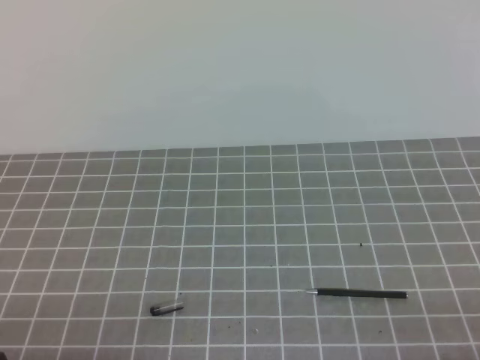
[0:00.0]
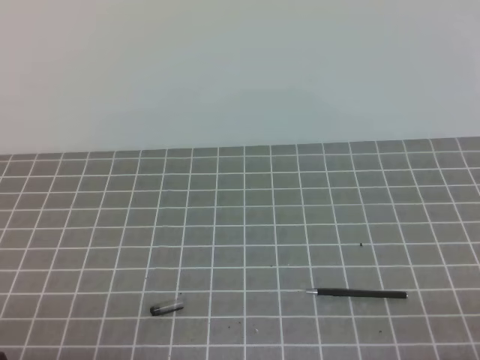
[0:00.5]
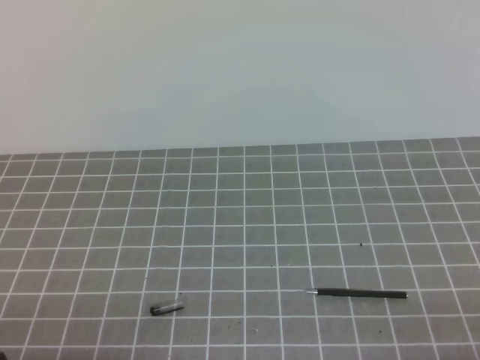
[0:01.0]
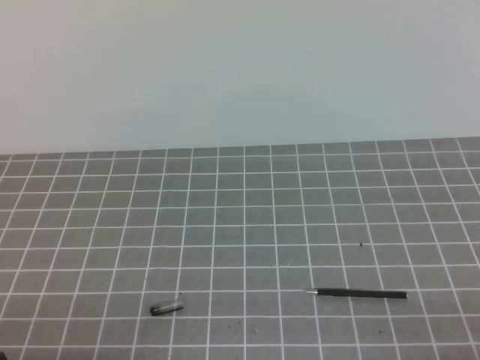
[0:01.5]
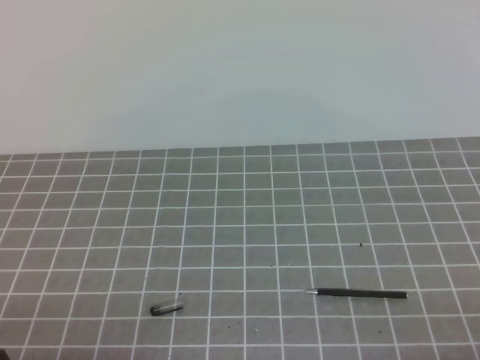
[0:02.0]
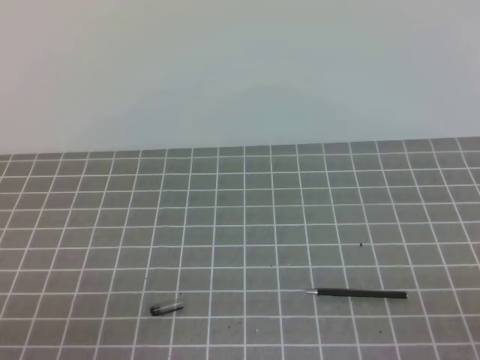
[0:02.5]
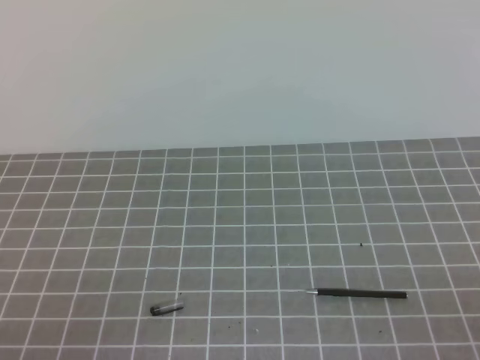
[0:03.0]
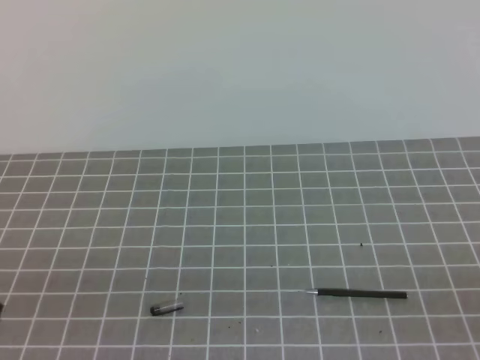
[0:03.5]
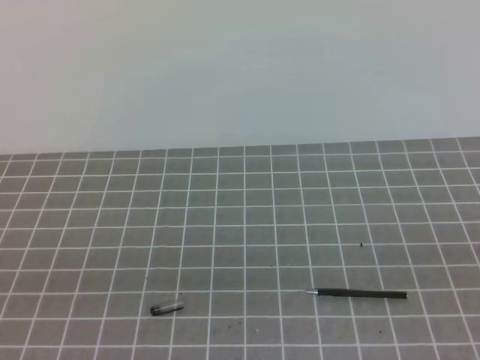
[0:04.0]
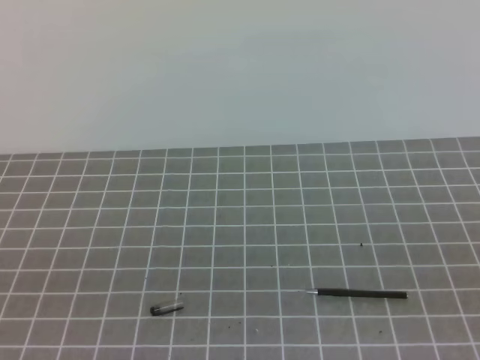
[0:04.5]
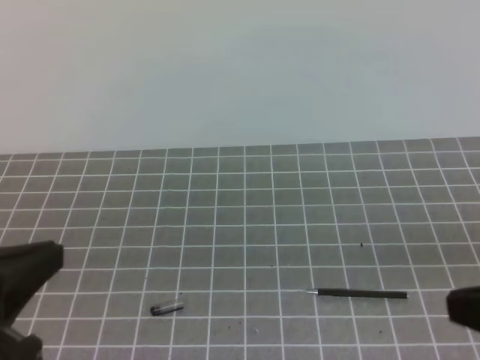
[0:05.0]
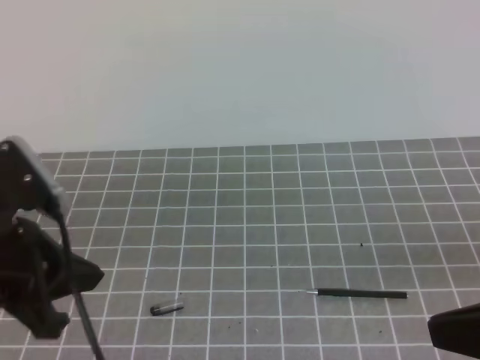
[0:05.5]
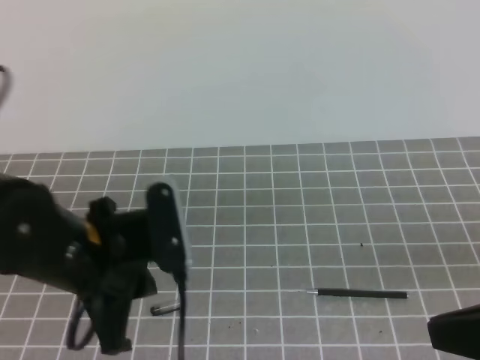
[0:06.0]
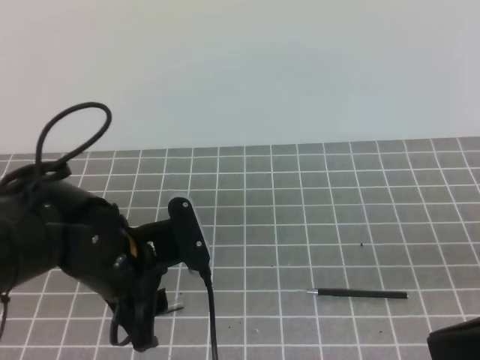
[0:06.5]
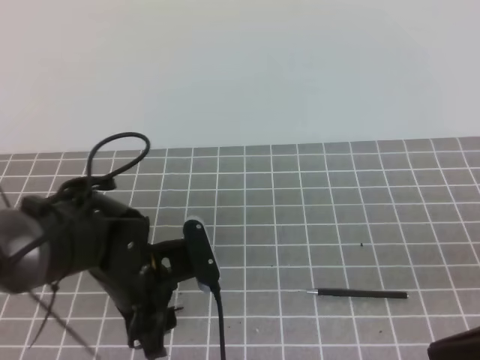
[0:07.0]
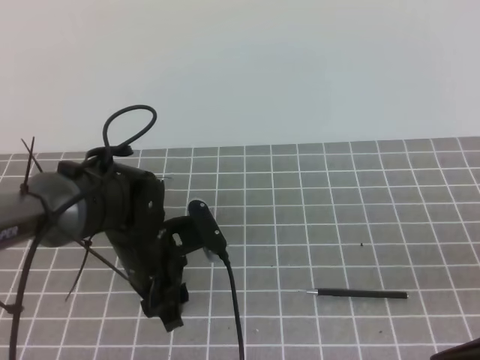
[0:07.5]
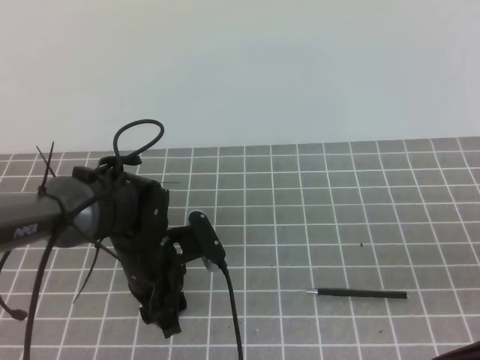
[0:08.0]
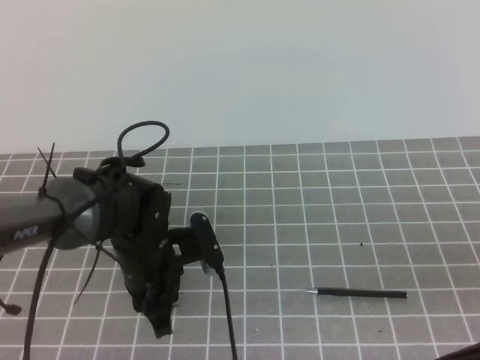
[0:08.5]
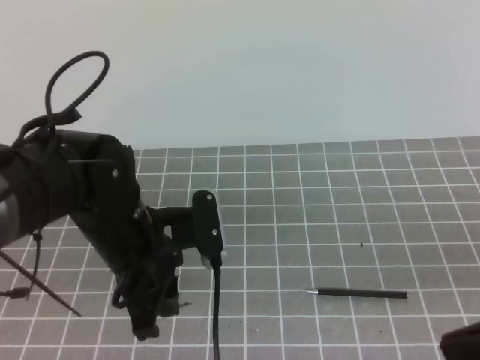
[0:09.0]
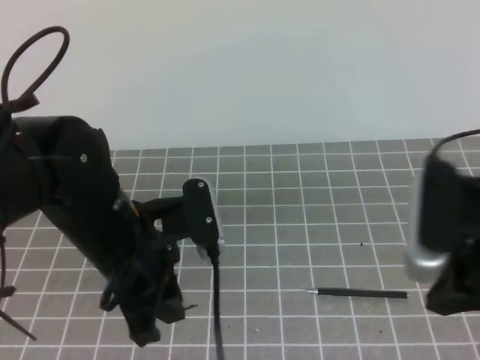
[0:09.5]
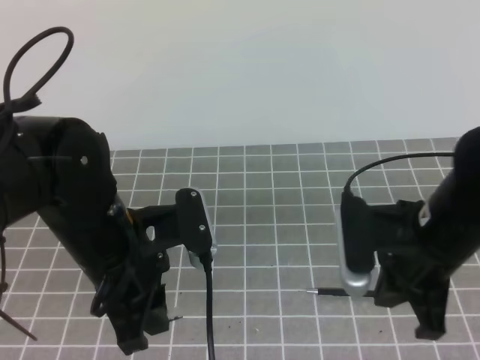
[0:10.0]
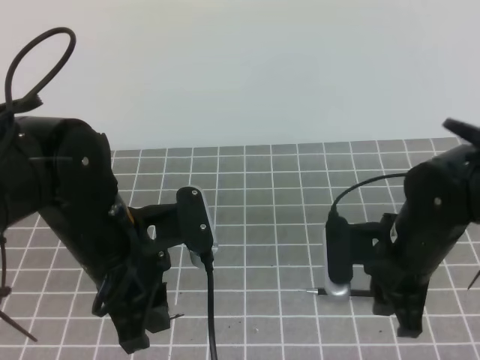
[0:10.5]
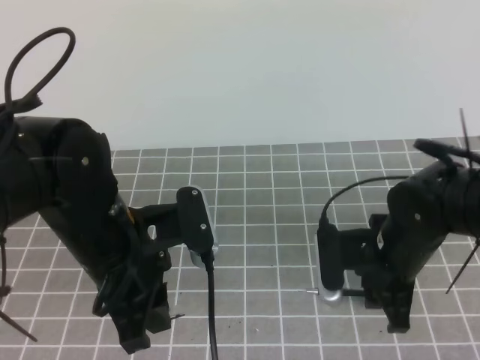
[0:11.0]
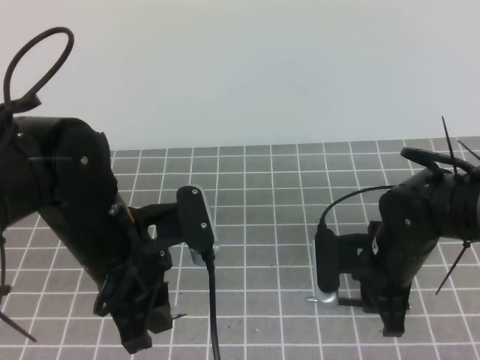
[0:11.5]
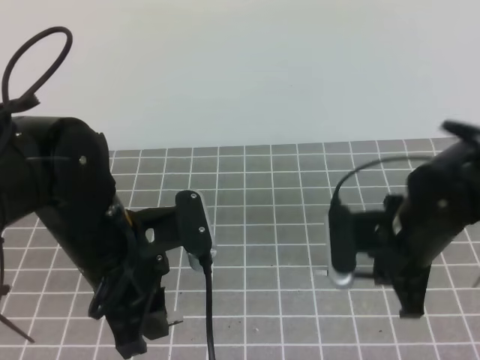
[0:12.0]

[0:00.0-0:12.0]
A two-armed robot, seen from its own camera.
Task of the whole recording: on the grey tablecloth, hold the pen cap in one hand and the pen in the other, then cover the pen cap.
0:04.0 to 0:06.0: The right gripper heads forward and to the left, covering some 10 cm. The left gripper is displaced forward and to the right by roughly 20 cm.
0:06.0 to 0:08.0: The left gripper is displaced downward and forward by roughly 15 cm, and opens up.
0:08.0 to 0:10.0: The right gripper shifts approximately 15 cm forward and to the left. Meanwhile the left gripper travels upward and backward by approximately 15 cm, and closes.
0:10.0 to 0:12.0: The right gripper heads downward, covering roughly 5 cm, and opens and closes again.

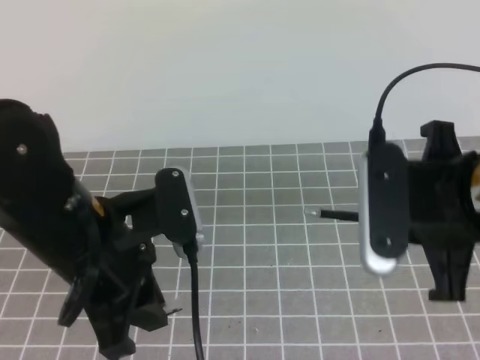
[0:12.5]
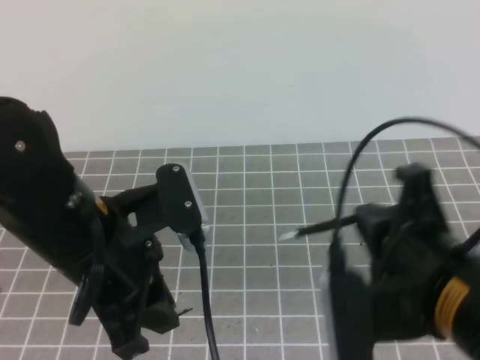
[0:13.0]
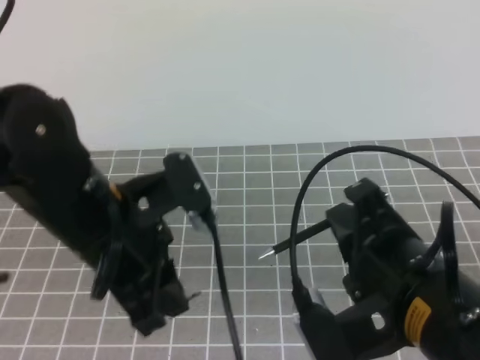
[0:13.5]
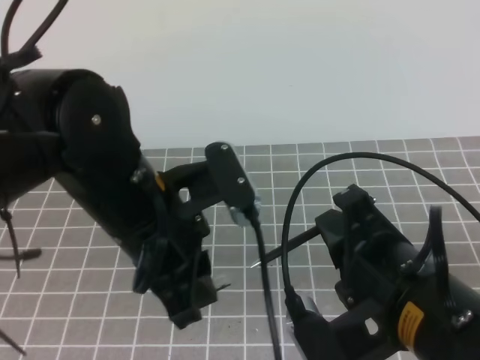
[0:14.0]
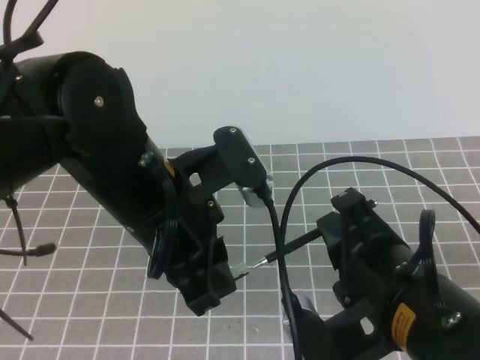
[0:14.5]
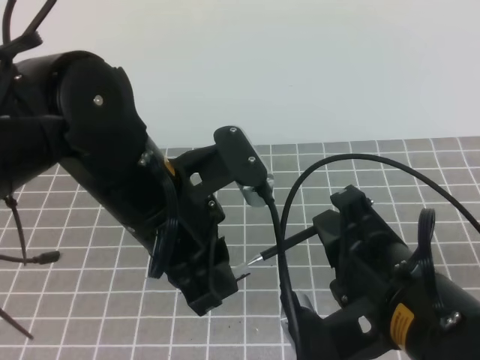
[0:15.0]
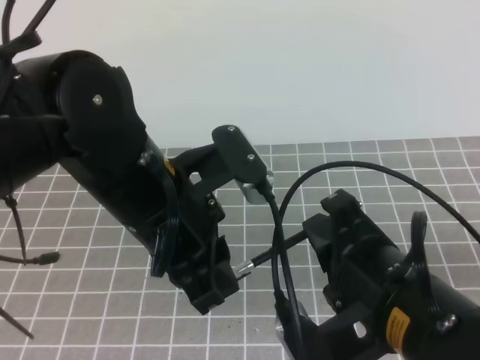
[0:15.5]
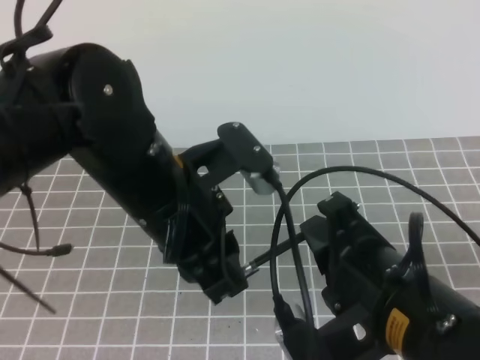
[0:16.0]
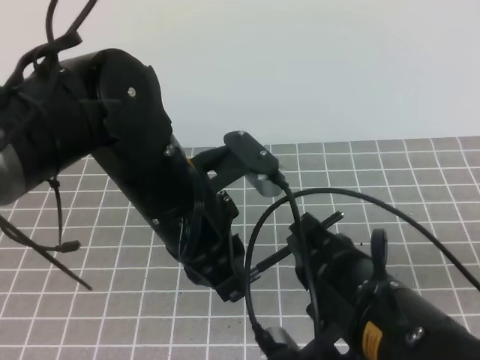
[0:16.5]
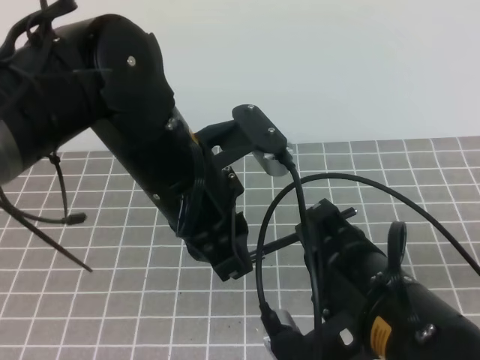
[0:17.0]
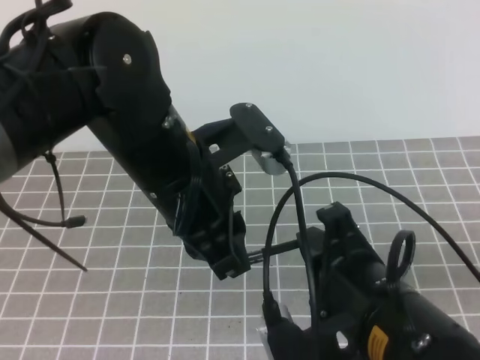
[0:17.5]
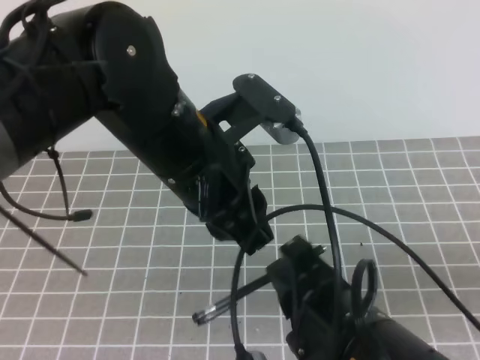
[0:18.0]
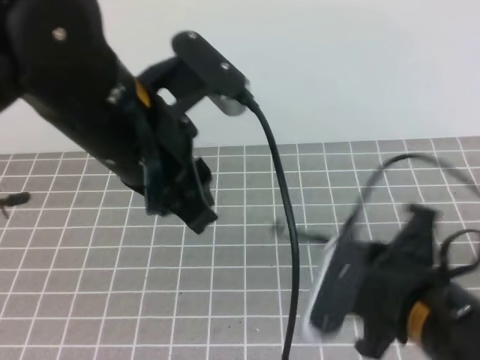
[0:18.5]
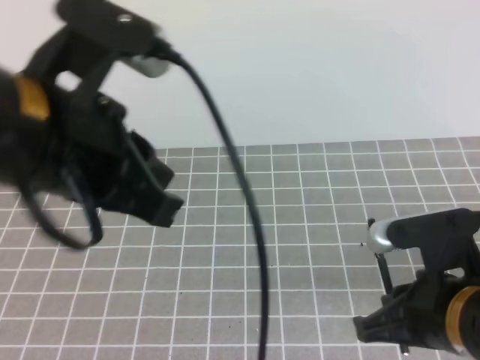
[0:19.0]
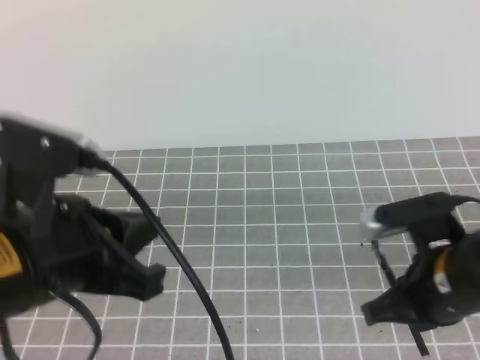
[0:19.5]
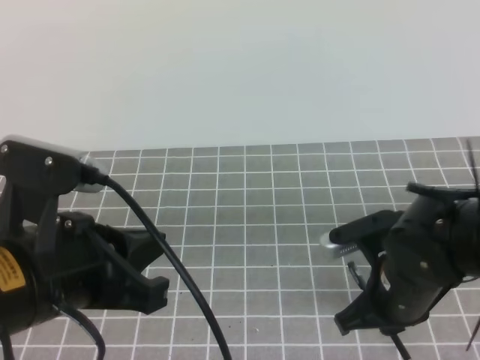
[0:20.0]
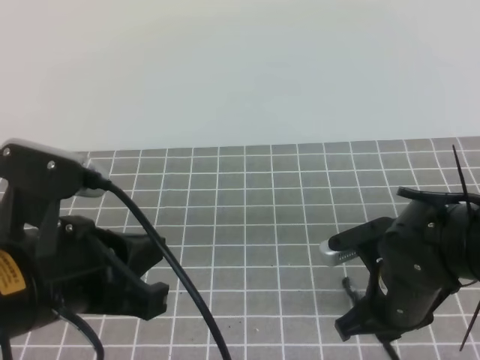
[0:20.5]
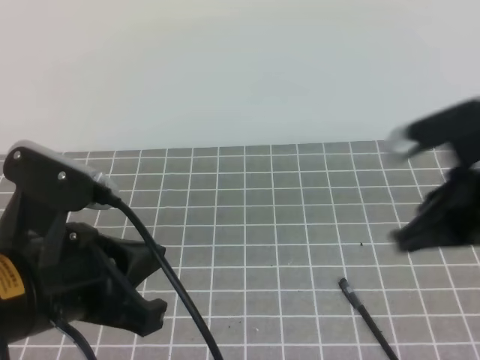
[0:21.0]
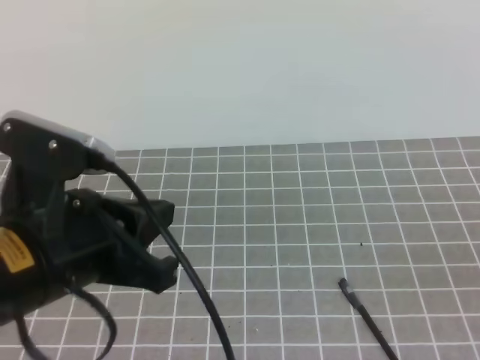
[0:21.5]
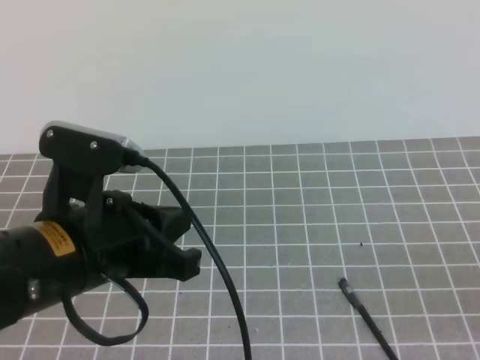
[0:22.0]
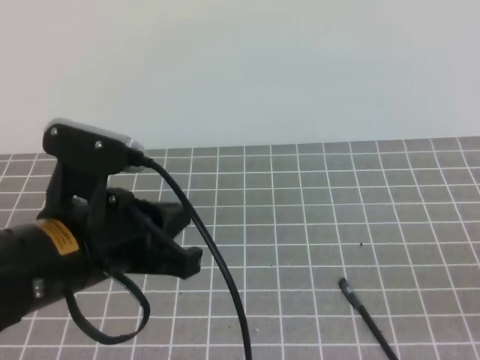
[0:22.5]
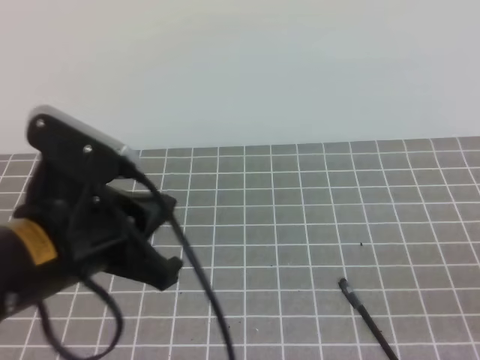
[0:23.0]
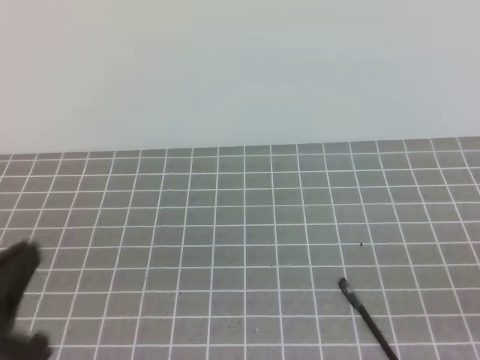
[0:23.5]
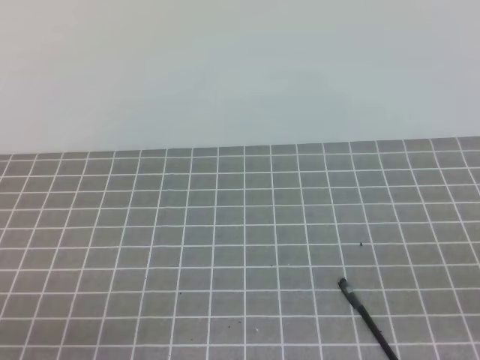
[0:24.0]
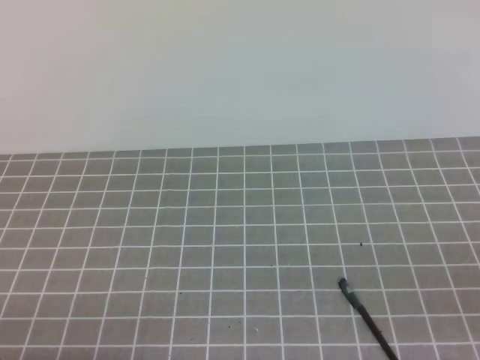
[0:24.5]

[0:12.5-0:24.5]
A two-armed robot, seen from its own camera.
Task of the whole recording: on the grey tablecloth, hold the pen cap in one hand and the pen in the other, then cover the pen cap.
0:12.5 to 0:14.5: The right gripper is displaced backward and to the left by about 10 cm, while the left gripper changes place by approximately 5 cm.
0:16.5 to 0:18.5: The left gripper travels upward by about 5 cm, and opens up.
0:18.5 to 0:20.5: The right gripper goes some 15 cm forward and downward, and opens. Meanwhile the left gripper goes about 10 cm backward, downward and to the left, and closes up.
0:20.5 to 0:22.5: The right gripper travels backward, to the right and upward by some 30 cm, and closes its fingers.
0:22.5 to 0:24.5: The left gripper moves downward, backward and to the left, about 25 cm.
